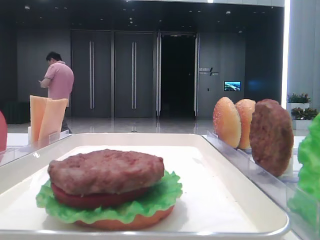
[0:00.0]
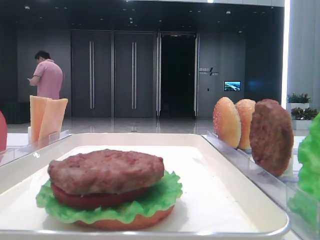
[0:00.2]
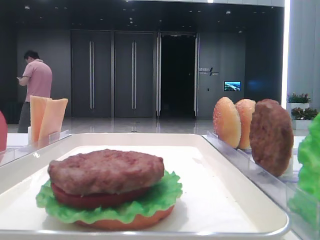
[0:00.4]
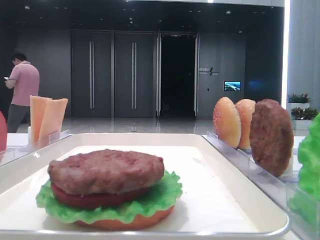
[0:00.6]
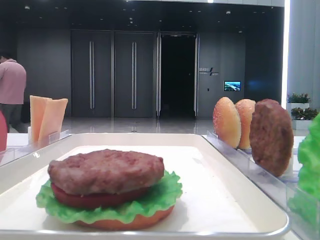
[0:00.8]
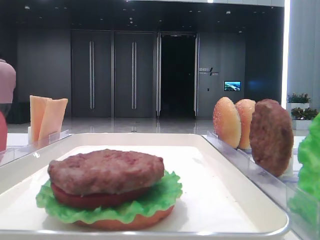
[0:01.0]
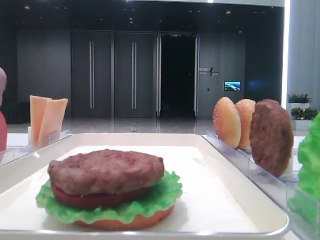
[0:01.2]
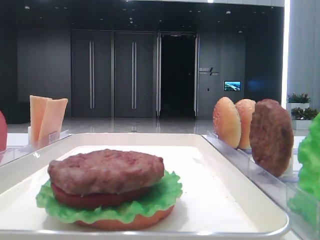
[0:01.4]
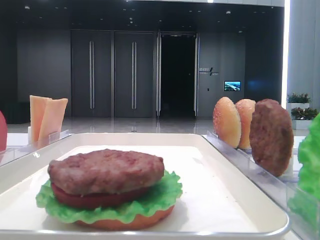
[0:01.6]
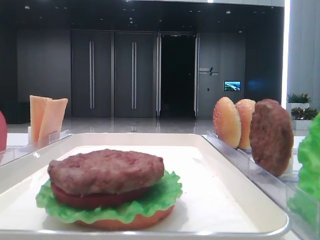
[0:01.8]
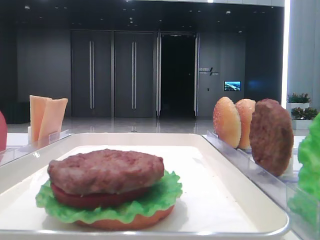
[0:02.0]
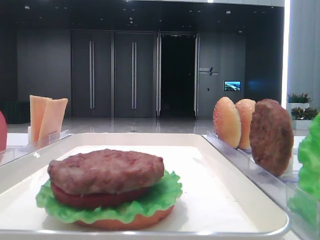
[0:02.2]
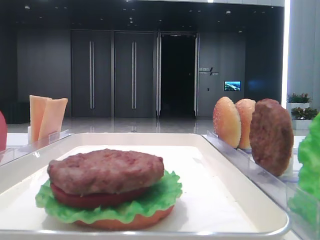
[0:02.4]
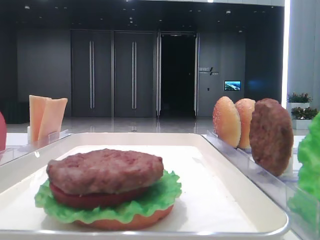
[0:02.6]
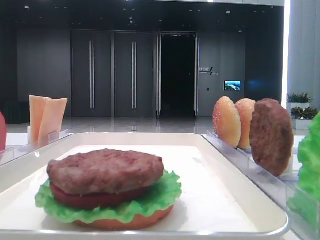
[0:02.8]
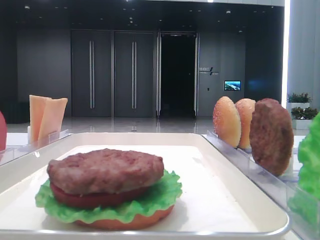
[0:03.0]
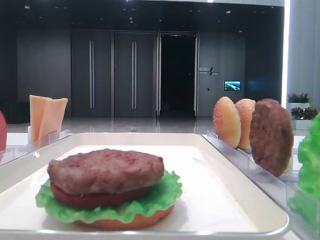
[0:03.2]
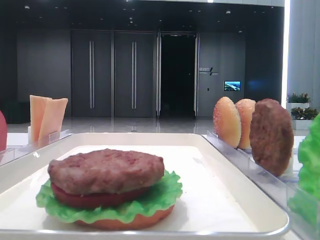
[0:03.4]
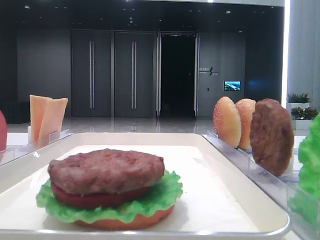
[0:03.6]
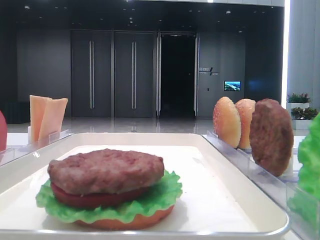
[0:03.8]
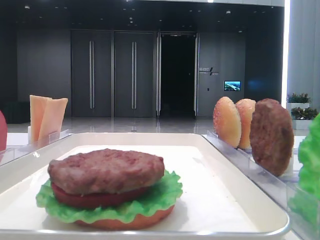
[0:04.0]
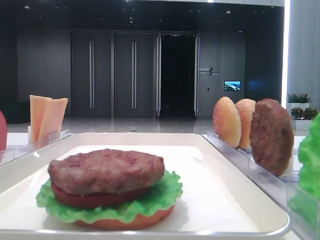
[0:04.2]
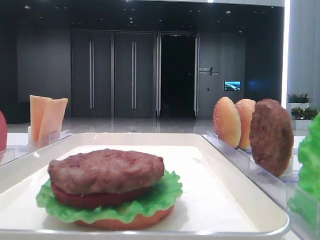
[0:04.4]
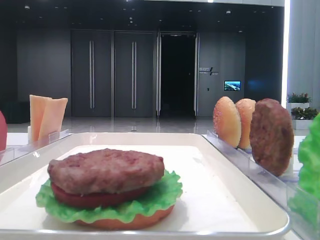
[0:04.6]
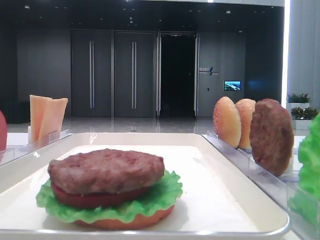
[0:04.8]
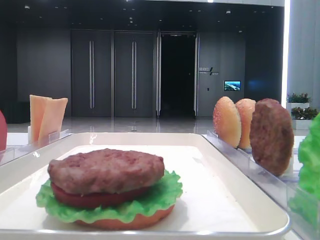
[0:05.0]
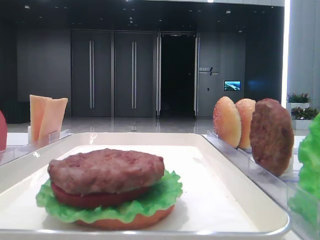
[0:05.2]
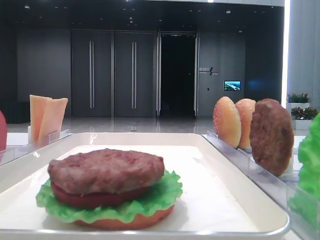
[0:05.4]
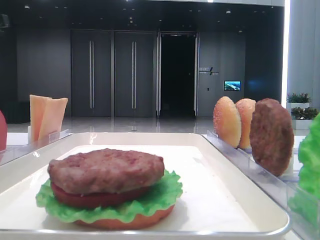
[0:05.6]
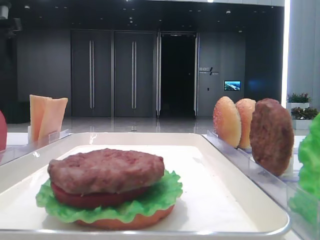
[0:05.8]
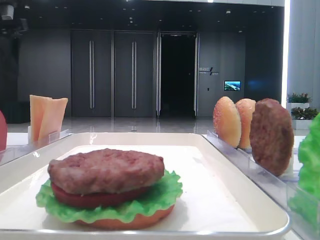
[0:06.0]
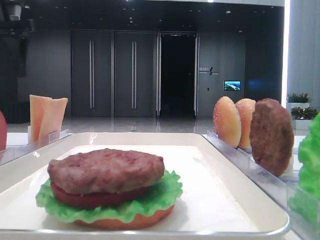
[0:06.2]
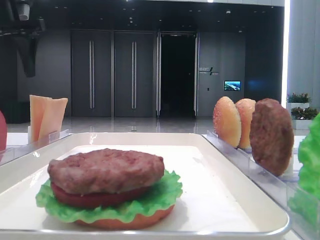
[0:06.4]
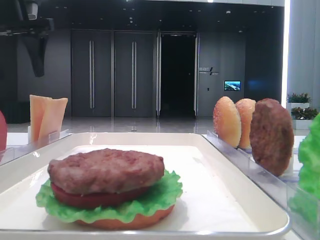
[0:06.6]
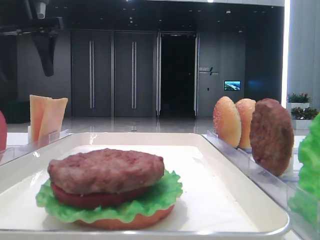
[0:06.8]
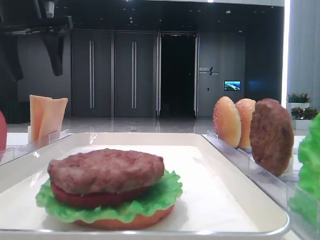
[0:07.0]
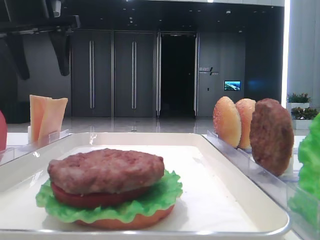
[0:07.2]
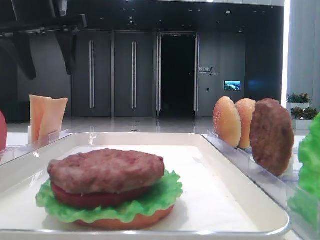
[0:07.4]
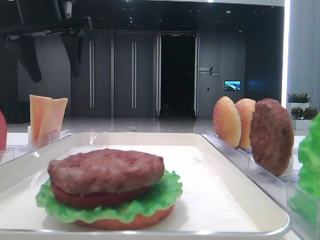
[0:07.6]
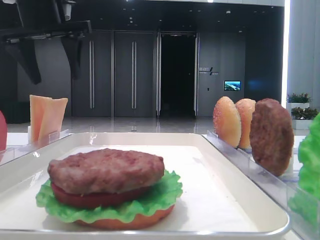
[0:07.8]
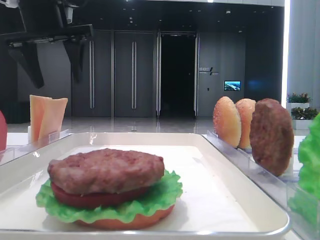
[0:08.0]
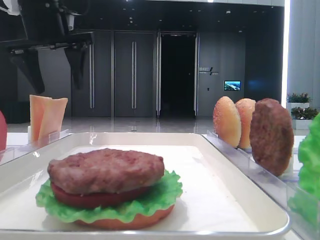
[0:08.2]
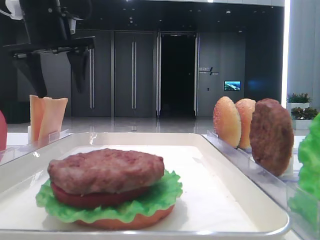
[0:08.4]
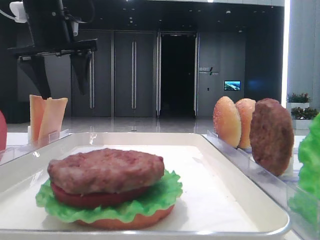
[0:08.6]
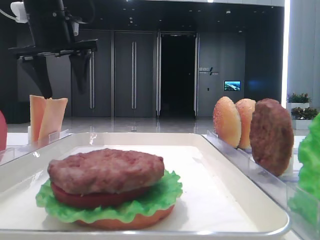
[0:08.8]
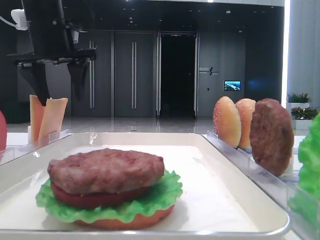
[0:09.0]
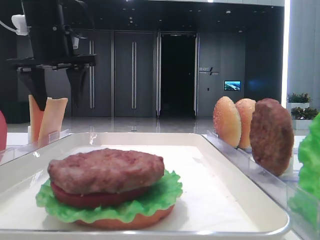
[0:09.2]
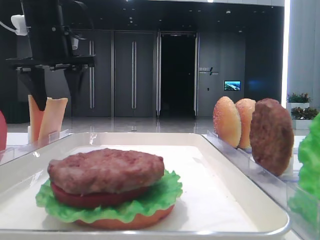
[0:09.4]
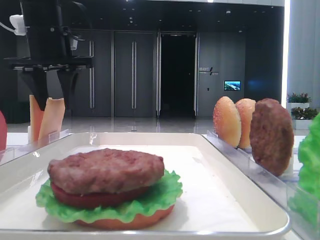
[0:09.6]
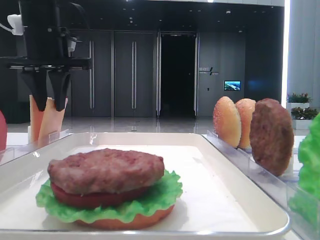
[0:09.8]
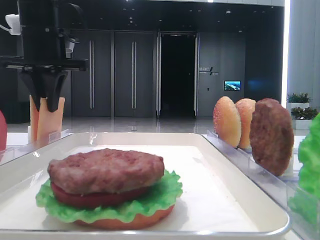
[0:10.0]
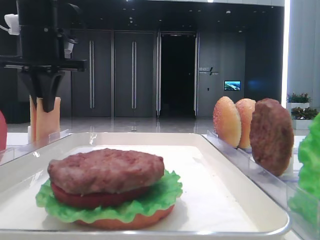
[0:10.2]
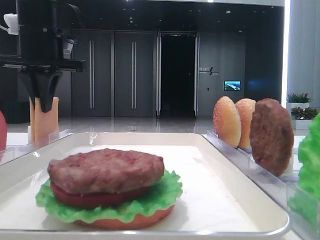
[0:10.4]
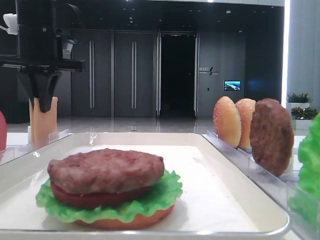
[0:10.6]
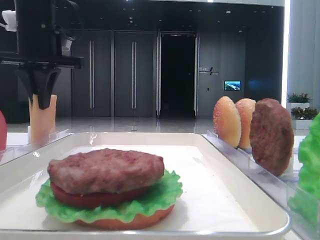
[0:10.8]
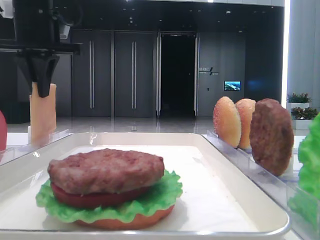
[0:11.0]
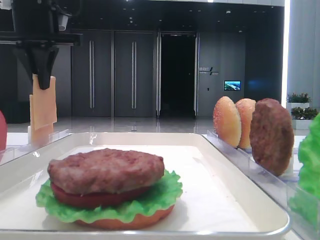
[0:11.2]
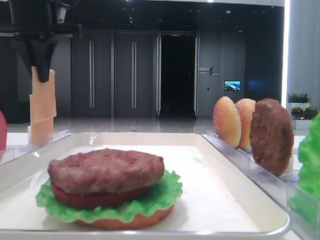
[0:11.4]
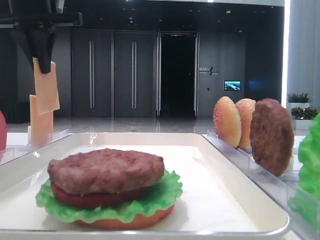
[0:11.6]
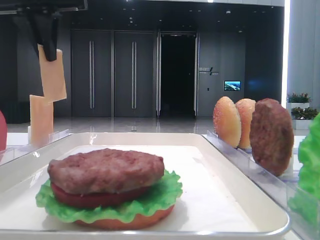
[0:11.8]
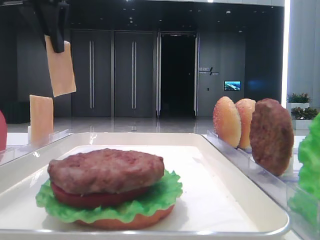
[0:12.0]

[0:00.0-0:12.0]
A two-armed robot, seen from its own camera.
Step, 0:00.0 to 0:10.6: Pick up the cheese slice with the left hand.
0:06.0 to 0:07.6: The left gripper goes roughly 10 cm to the right.
0:07.6 to 0:09.0: The grippers make only small movements.
0:09.0 to 0:10.4: The left gripper closes up.
0:10.4 to 0:12.0: The left gripper goes roughly 10 cm upward and backward.

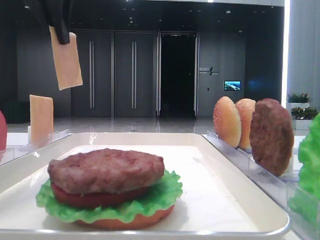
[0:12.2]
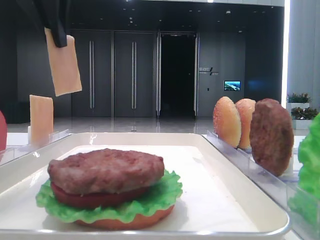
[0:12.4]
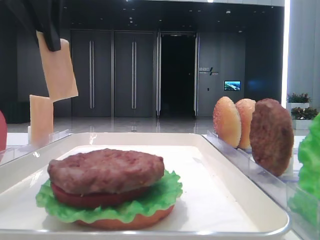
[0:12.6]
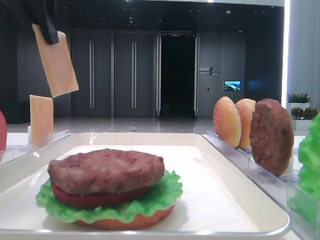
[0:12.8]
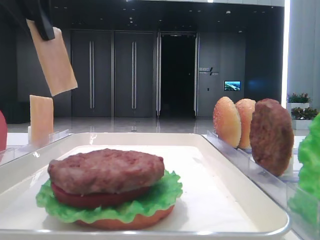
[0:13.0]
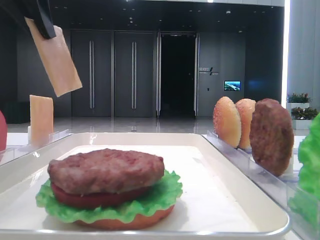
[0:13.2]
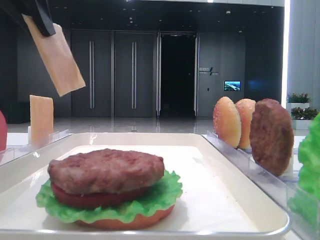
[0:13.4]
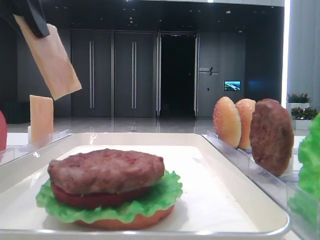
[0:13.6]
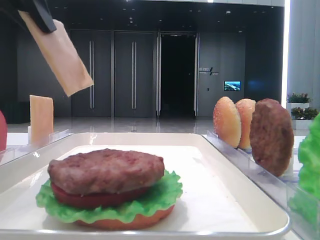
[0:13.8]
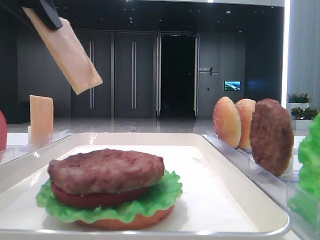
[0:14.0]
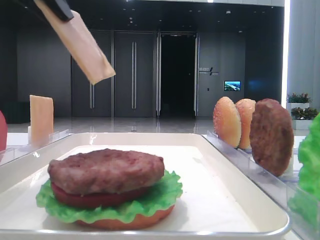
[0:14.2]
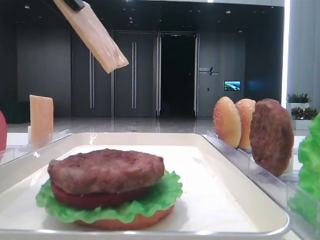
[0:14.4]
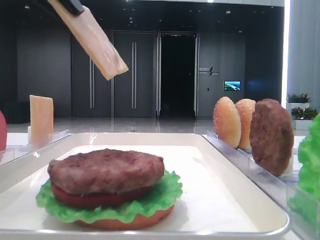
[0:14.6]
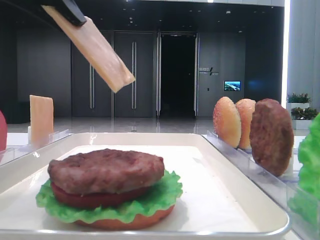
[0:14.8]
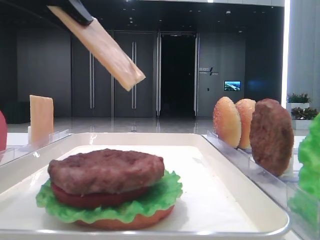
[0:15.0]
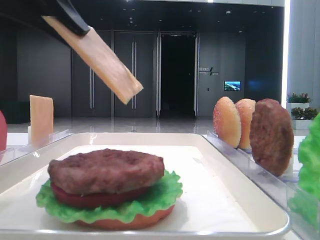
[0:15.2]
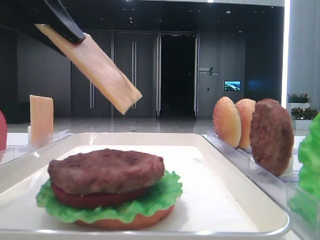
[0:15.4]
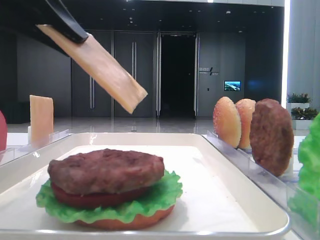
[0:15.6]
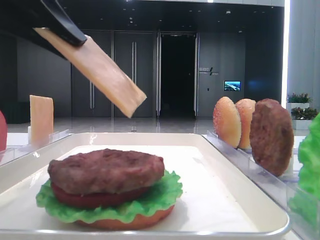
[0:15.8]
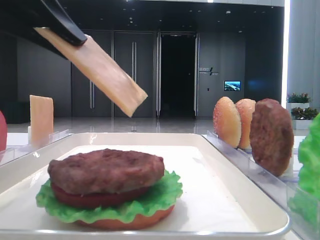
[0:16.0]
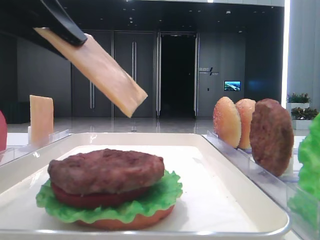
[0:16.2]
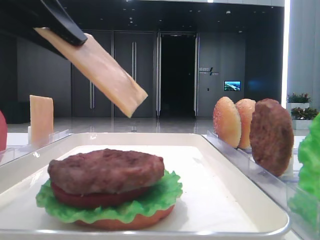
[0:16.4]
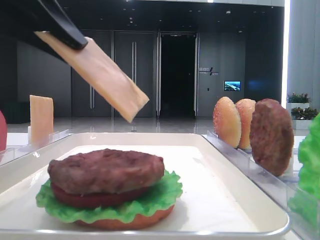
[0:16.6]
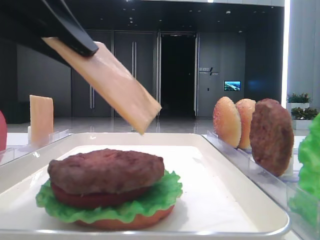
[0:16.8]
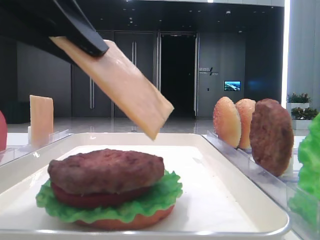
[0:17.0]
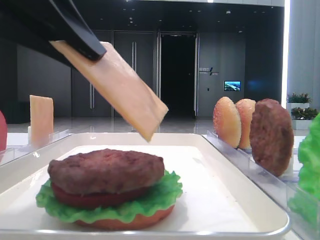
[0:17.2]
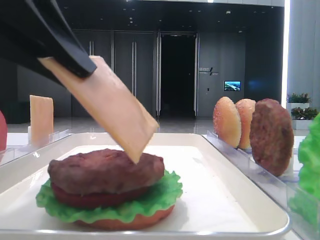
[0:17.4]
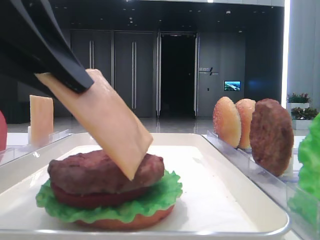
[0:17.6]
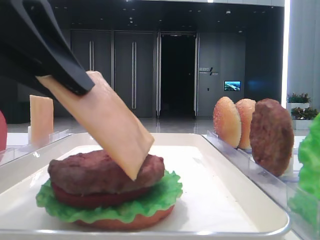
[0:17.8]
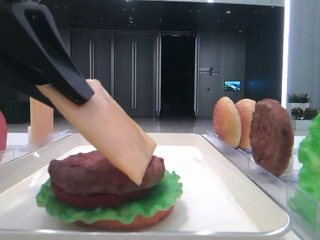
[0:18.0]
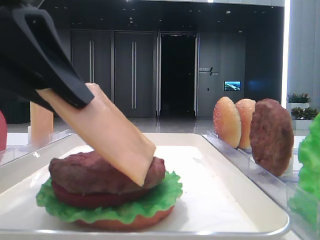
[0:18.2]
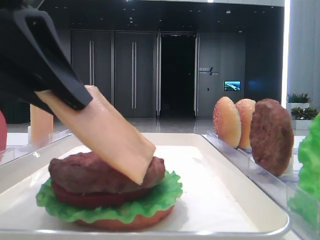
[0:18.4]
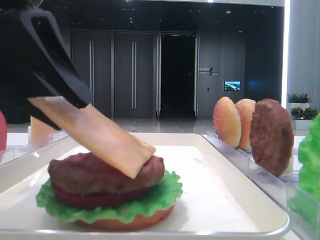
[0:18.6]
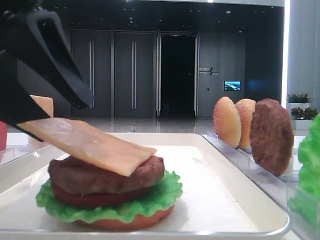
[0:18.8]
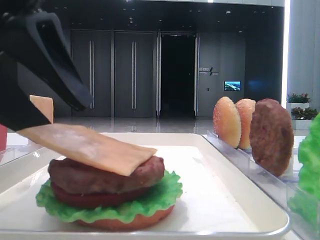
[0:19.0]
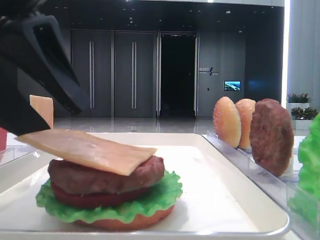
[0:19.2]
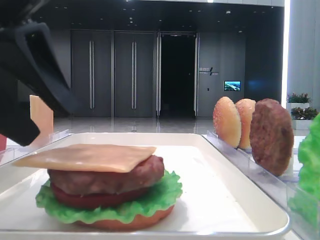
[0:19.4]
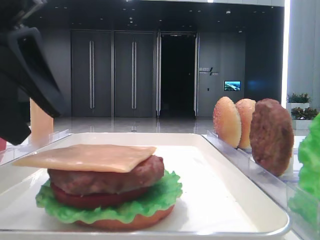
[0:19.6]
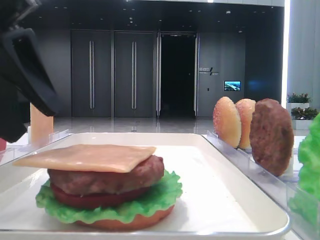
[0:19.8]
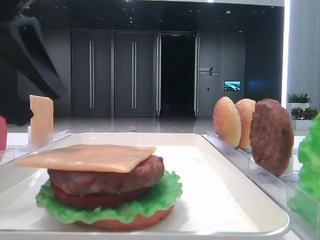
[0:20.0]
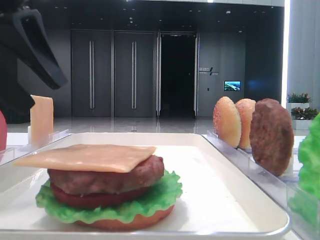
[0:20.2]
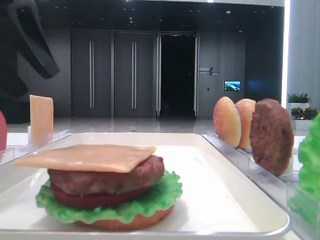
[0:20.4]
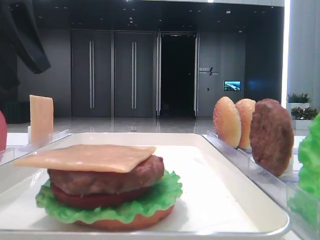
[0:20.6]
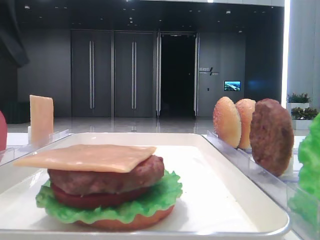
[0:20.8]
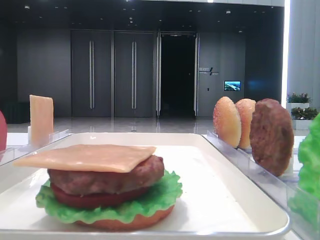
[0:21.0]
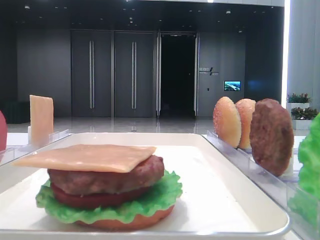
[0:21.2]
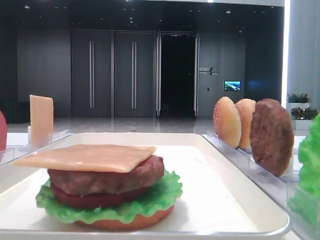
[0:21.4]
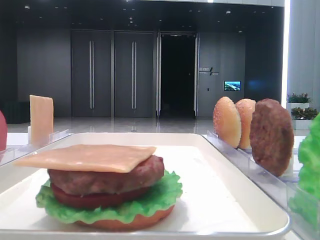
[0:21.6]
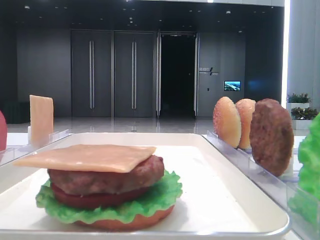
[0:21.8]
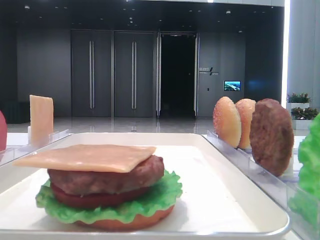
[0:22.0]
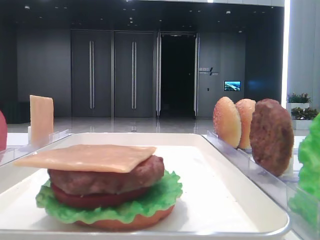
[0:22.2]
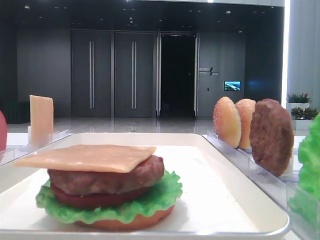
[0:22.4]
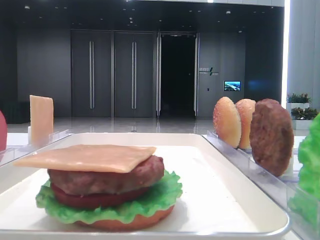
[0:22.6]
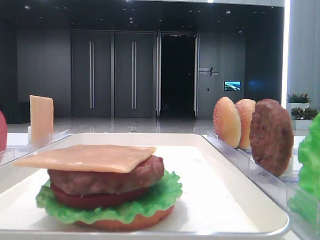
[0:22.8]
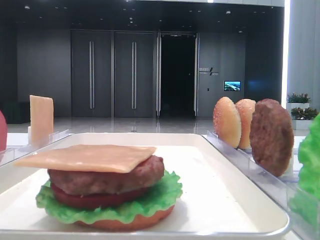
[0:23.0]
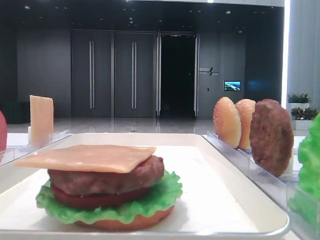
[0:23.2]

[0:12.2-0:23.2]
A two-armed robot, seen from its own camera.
Step, 0:12.2 to 0:19.2: Place the cheese slice on the patty with the left hand.
0:12.2 to 0:13.8: The left gripper is displaced backward by roughly 10 cm.
0:13.8 to 0:15.4: The left gripper shifts about 5 cm downward.
0:15.4 to 0:18.4: There are only small adjustments of the grippers.
0:18.4 to 0:20.0: The left gripper changes place by about 5 cm, and opens its fingers.
0:20.0 to 0:21.6: The left gripper goes roughly 15 cm to the left and upward.
